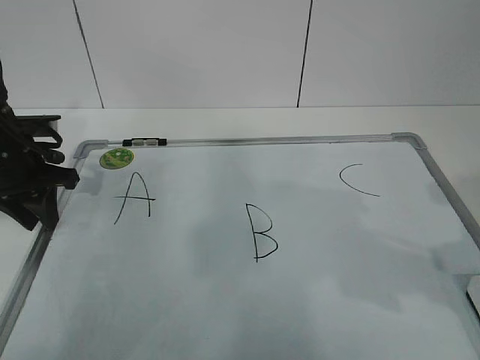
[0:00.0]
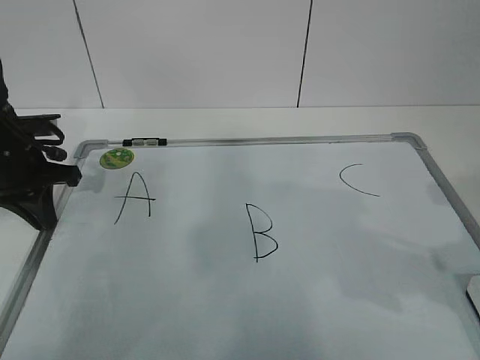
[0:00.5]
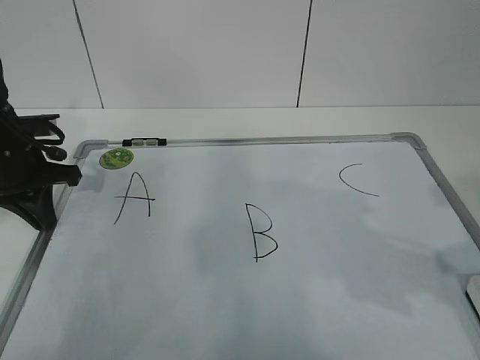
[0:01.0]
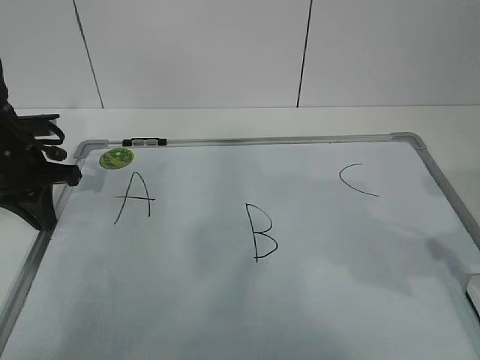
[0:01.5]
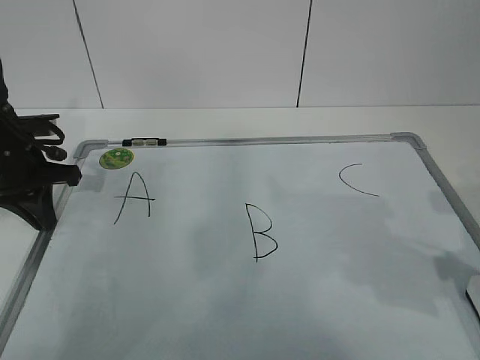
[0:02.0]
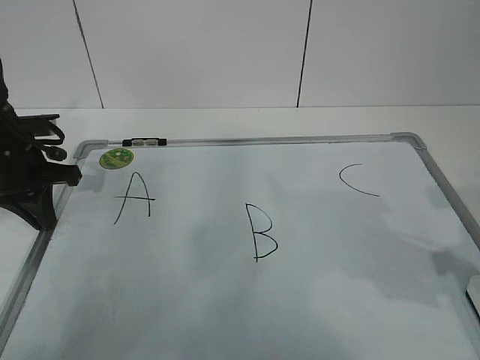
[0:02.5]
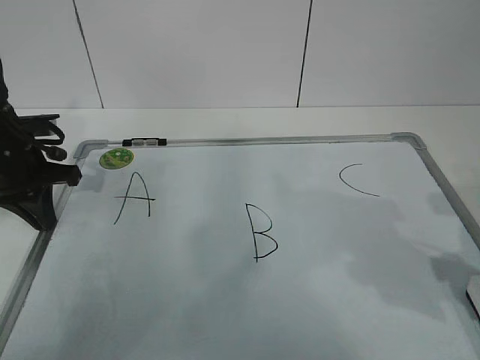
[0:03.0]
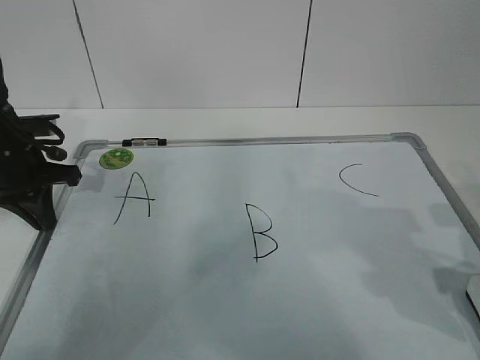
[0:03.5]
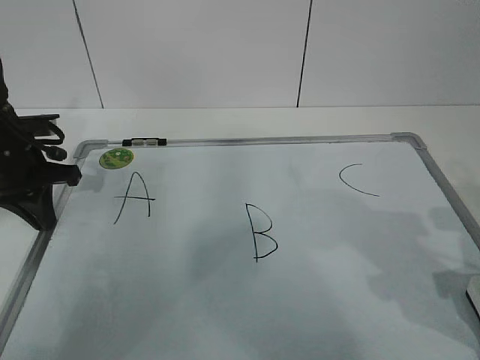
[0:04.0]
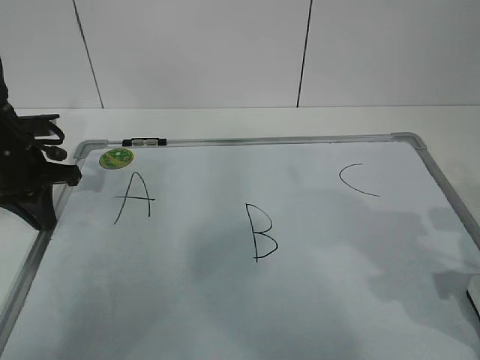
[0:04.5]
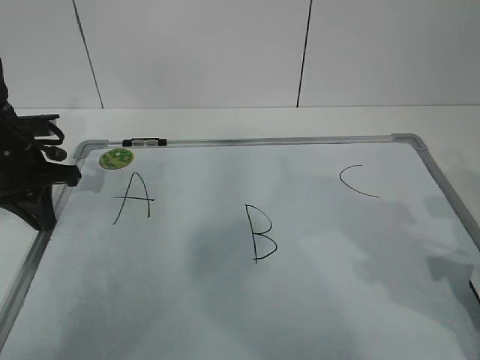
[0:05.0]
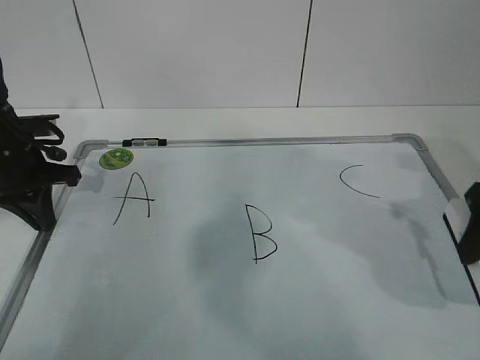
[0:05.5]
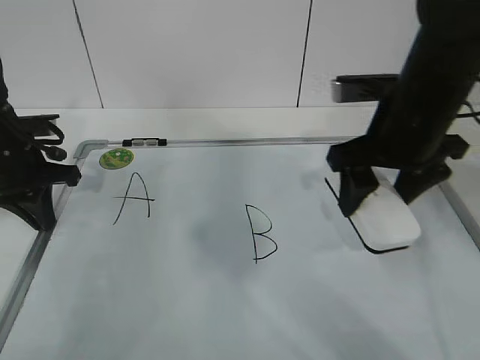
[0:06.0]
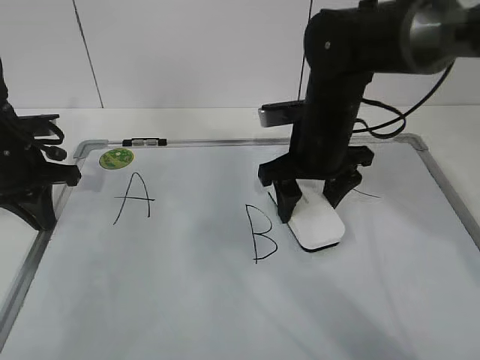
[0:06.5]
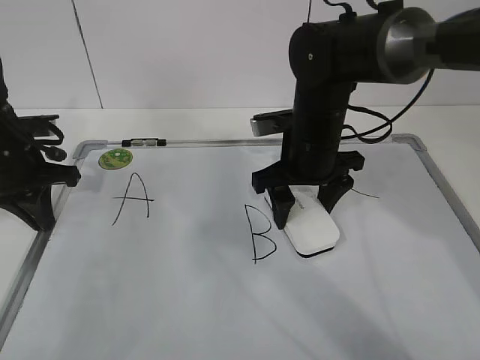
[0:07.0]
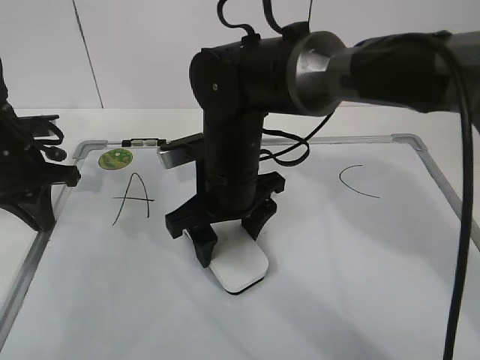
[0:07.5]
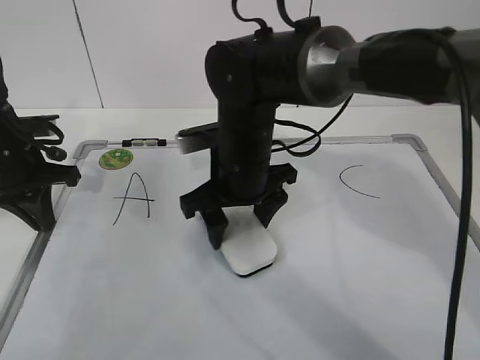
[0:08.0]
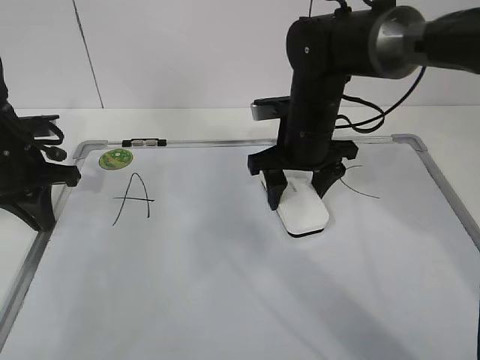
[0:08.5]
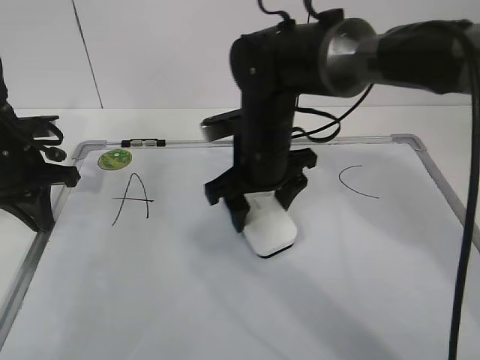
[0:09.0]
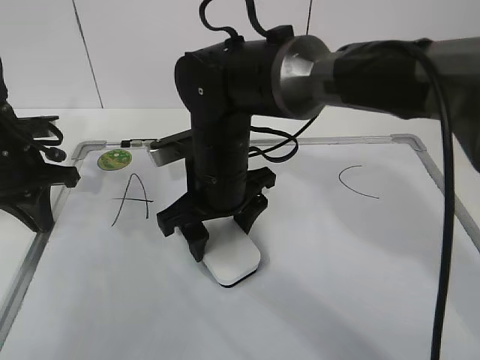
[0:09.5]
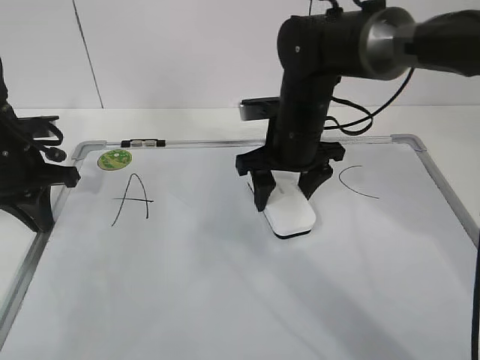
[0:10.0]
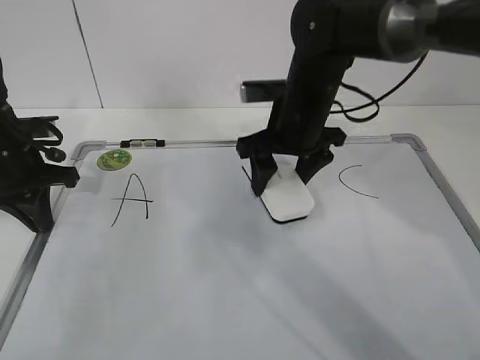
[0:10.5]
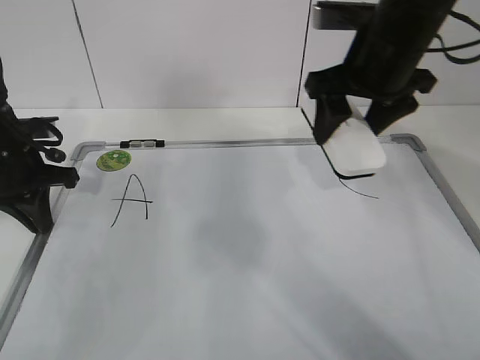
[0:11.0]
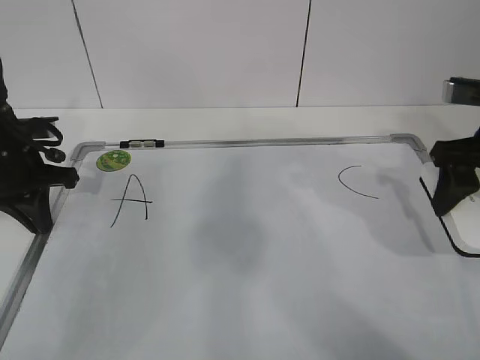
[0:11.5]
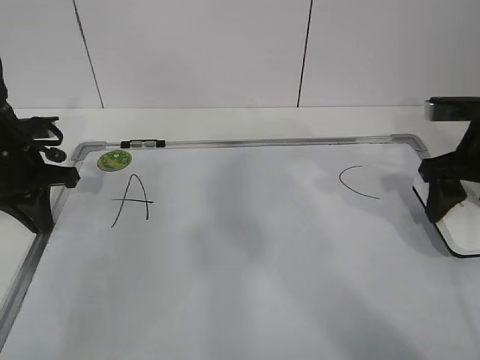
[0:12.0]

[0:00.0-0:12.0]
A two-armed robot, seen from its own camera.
Task of the whole recording: pick up the eraser on the blackboard and erase the letter "B".
Step, 0:03.0 to 0:07.5: Erase the letter B with your right hand.
Step, 0:08.0 to 0:11.0: Put down the eraser with your right hand.
0:00.0 to 0:02.0: The left gripper closes.
0:02.0 to 0:04.0: The right gripper ends up about 5 cm from where it was, and closes, then reopens.
0:04.0 to 0:06.0: The right gripper goes approximately 20 cm to the left, forward and upward, and closes up.
0:06.0 to 0:08.0: The right gripper goes roughly 15 cm to the left and downward.
0:08.0 to 0:10.0: The right gripper swings left and right, roughly 10 cm each way, with 2 reversals.
0:10.0 to 0:12.0: The right gripper moves to the right, roughly 20 cm.

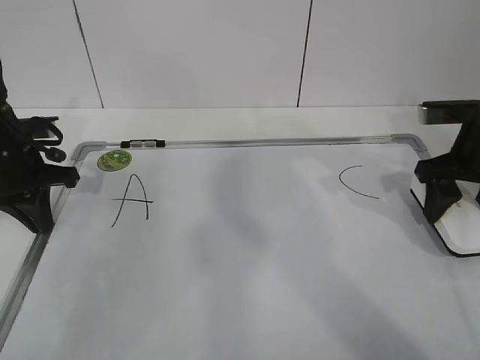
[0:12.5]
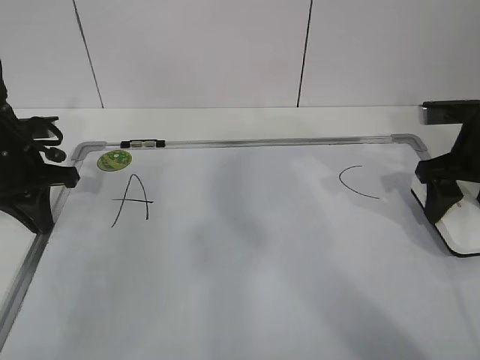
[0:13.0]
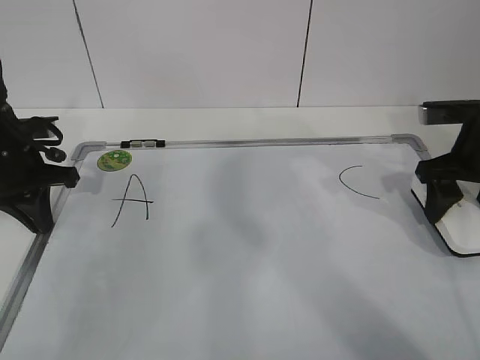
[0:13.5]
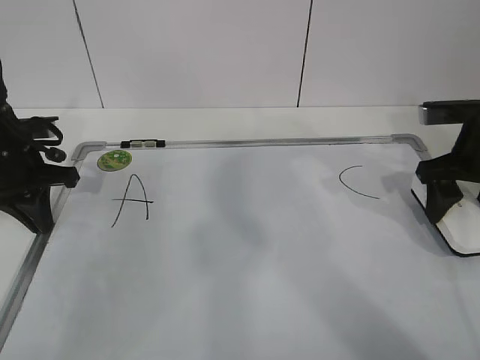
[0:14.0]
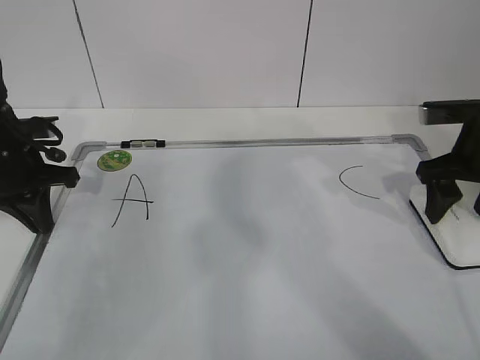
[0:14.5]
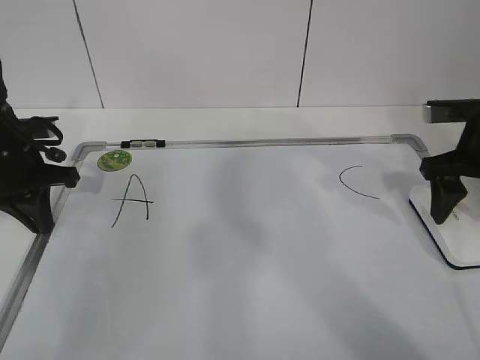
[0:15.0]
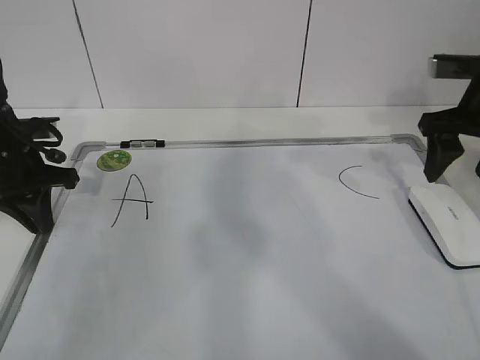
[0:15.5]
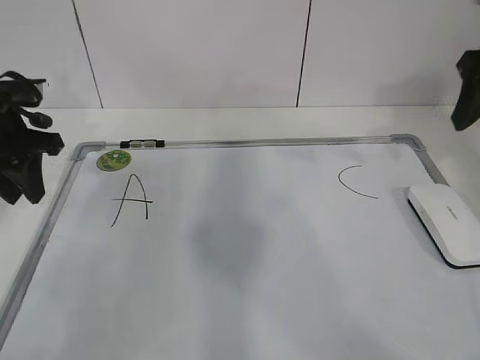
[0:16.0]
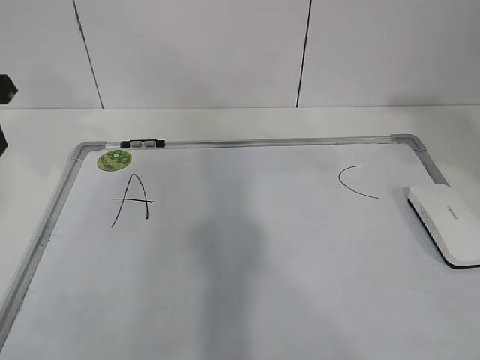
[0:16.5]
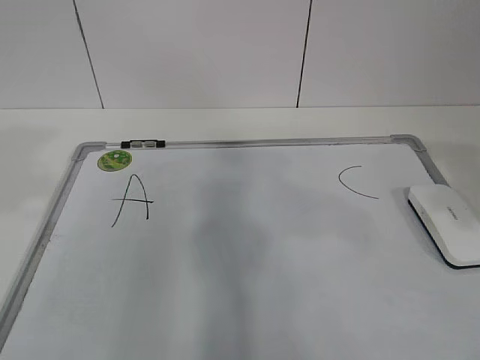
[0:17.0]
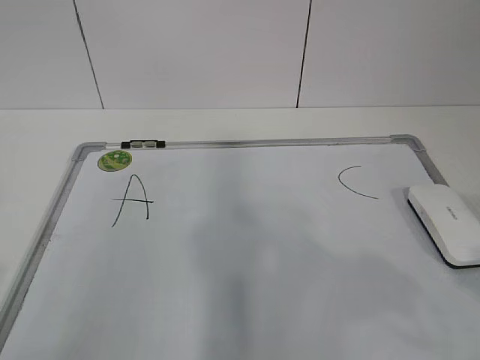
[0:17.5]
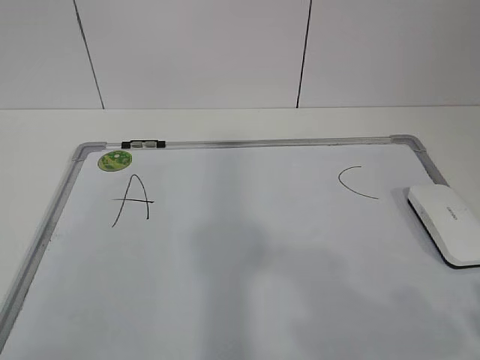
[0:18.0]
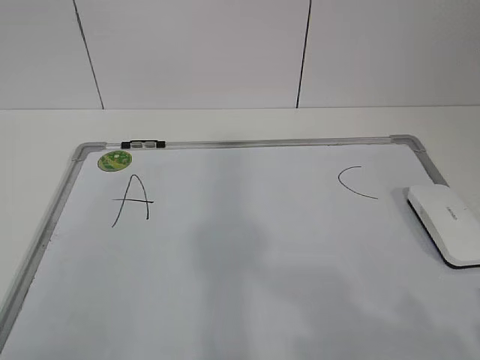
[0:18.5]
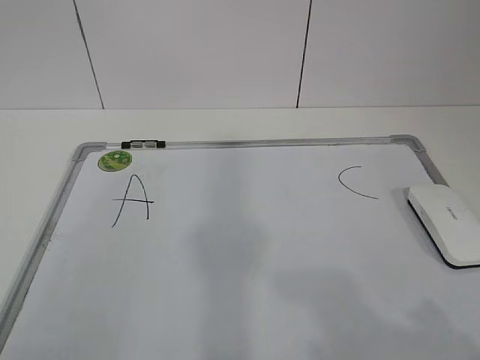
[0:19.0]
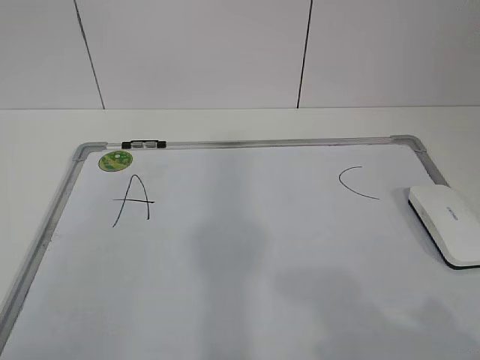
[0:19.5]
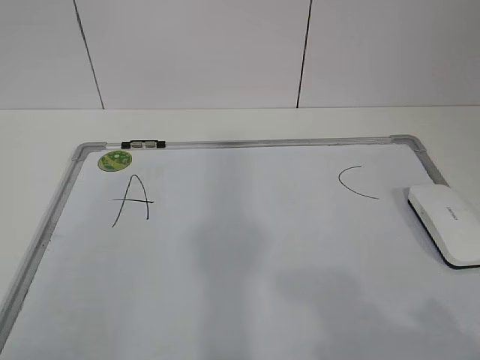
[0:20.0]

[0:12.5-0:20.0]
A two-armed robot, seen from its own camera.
Task of the whole recording: pick up the eraser on the blackboard and erase the letter "B".
0:12.5 to 0:14.5: The right gripper opens.
0:14.5 to 0:16.5: The right gripper goes some 20 cm upward and backward. Meanwhile the left gripper goes some 15 cm upward, and opens.
0:16.5 to 0:18.0: The right gripper goes about 25 cm backward and downward. The left gripper moves backward, some 35 cm.
